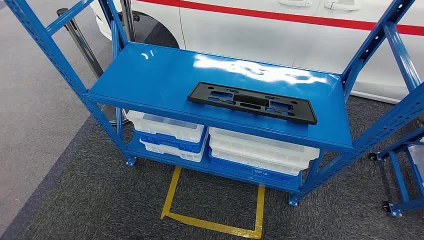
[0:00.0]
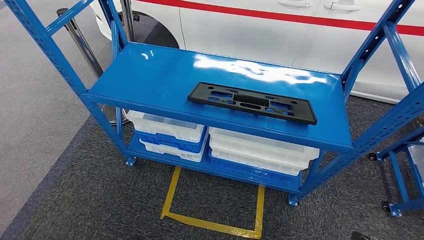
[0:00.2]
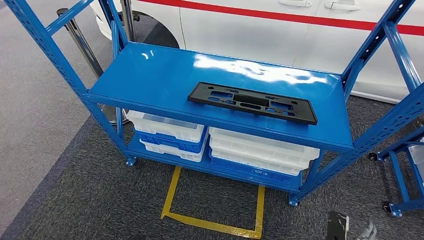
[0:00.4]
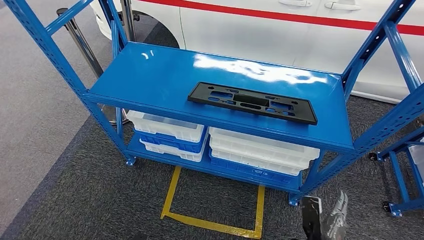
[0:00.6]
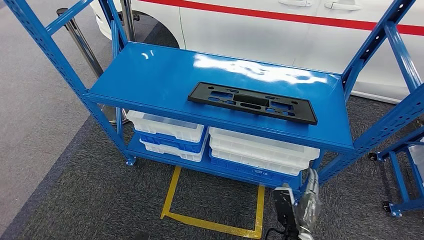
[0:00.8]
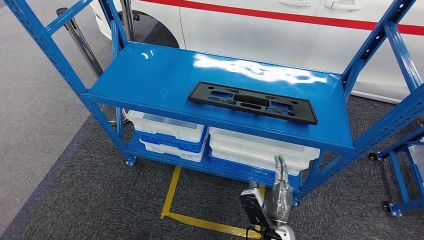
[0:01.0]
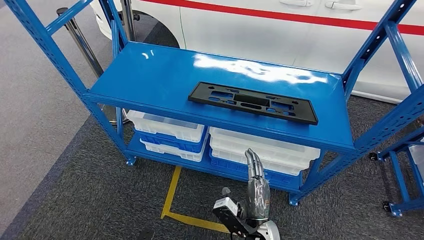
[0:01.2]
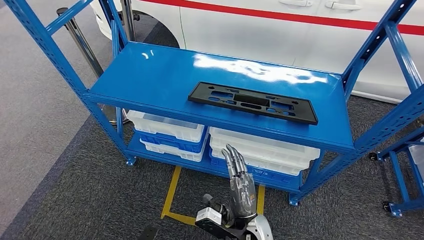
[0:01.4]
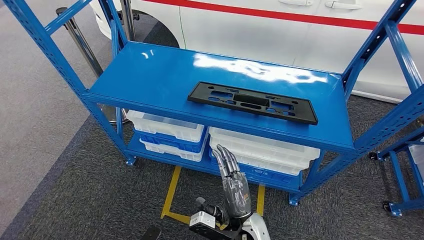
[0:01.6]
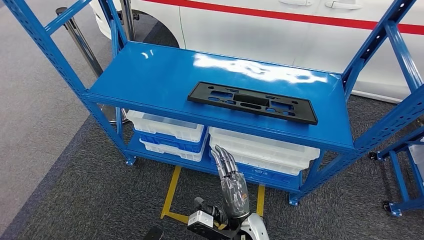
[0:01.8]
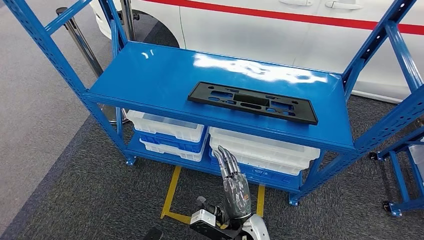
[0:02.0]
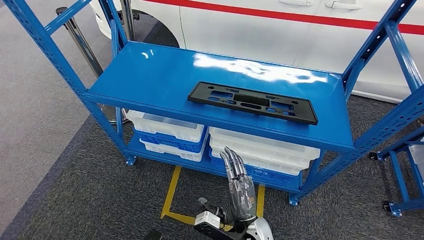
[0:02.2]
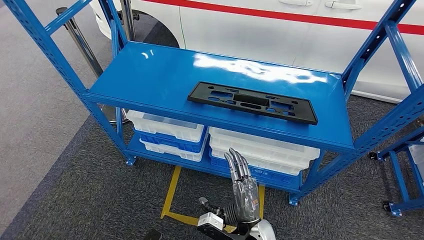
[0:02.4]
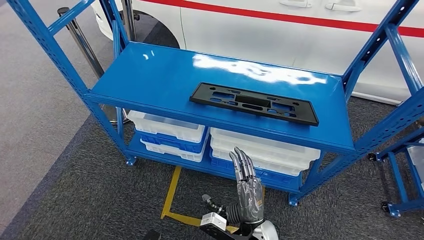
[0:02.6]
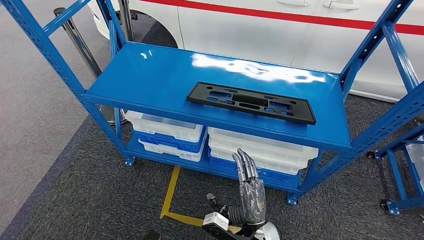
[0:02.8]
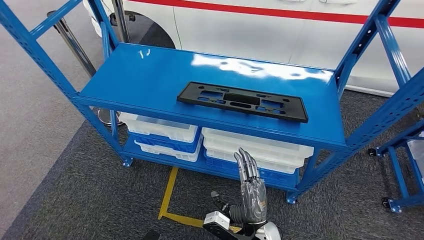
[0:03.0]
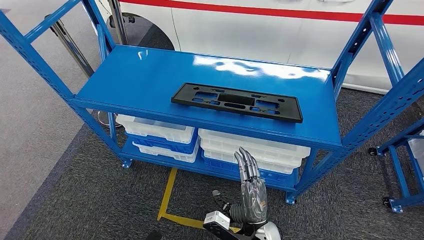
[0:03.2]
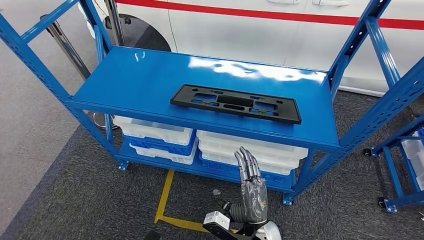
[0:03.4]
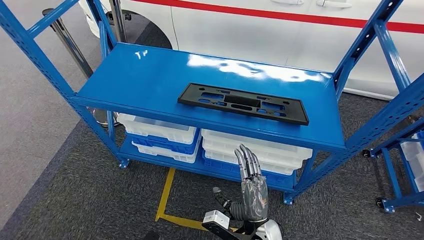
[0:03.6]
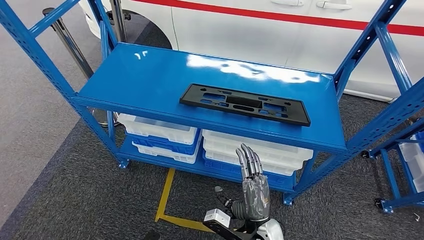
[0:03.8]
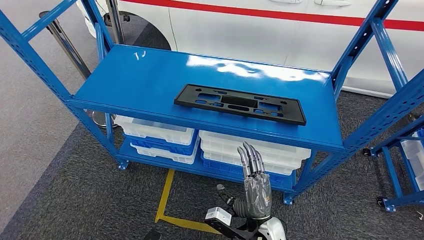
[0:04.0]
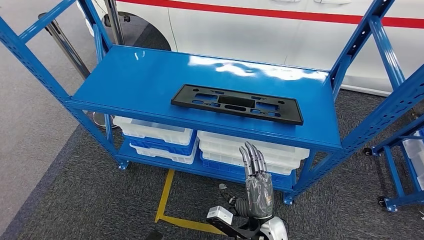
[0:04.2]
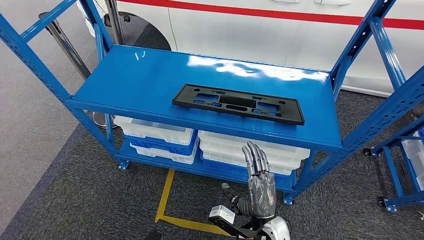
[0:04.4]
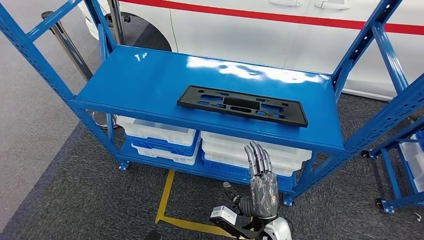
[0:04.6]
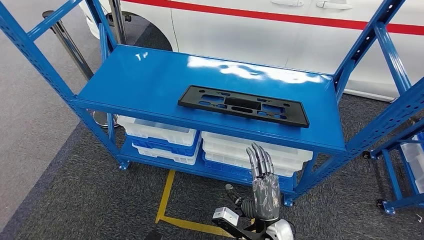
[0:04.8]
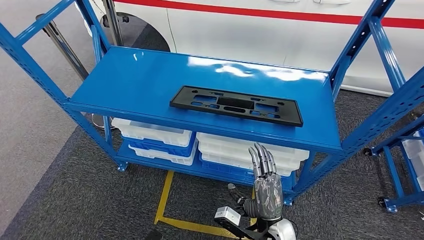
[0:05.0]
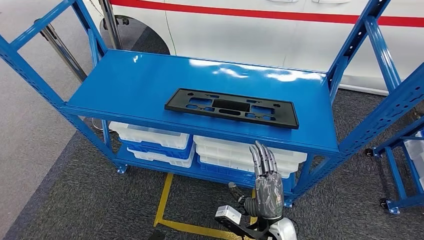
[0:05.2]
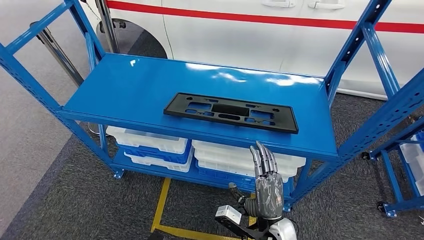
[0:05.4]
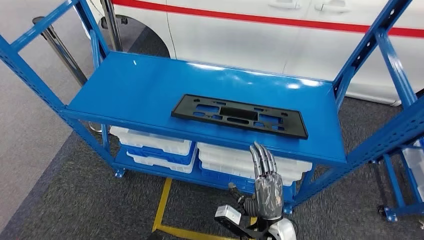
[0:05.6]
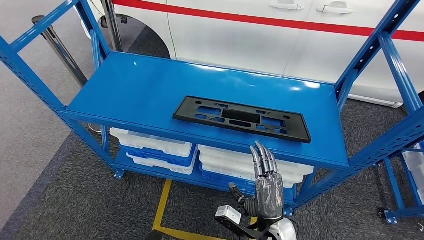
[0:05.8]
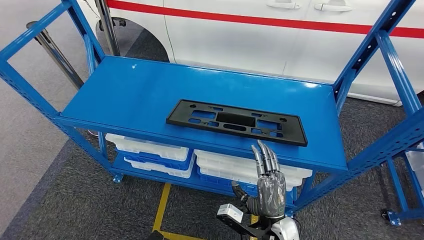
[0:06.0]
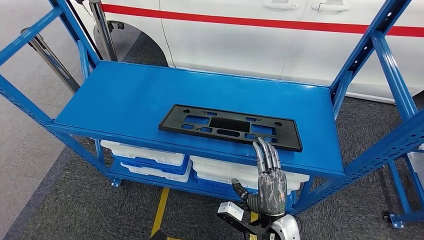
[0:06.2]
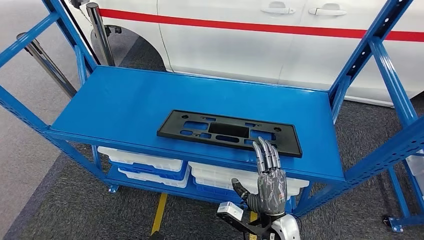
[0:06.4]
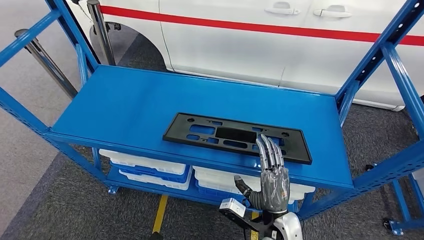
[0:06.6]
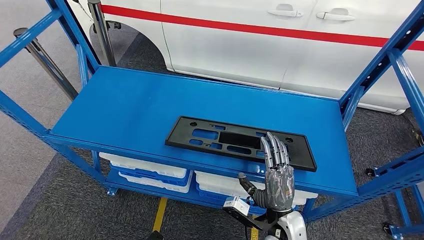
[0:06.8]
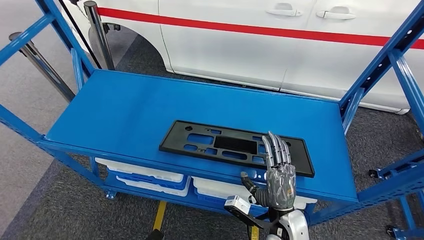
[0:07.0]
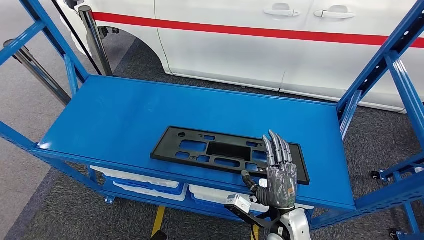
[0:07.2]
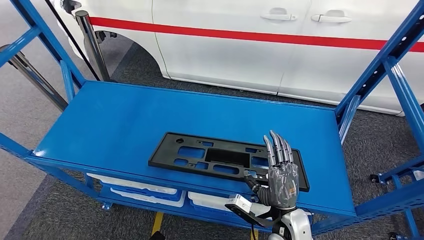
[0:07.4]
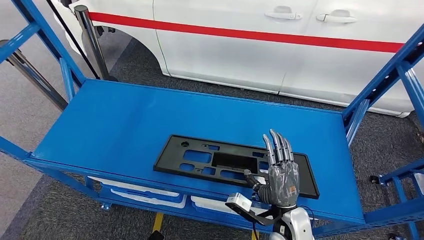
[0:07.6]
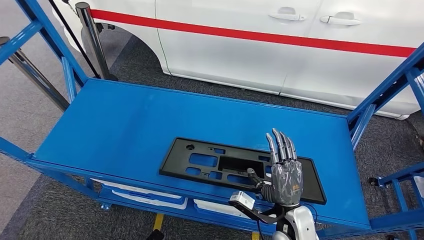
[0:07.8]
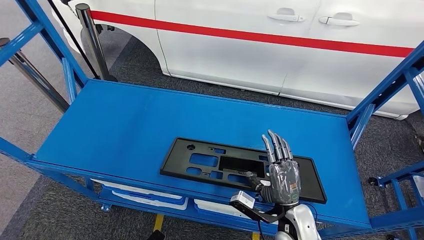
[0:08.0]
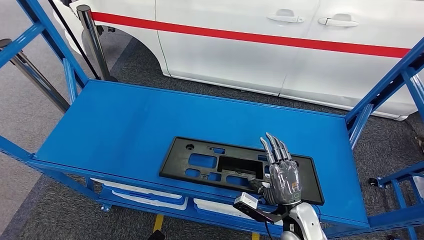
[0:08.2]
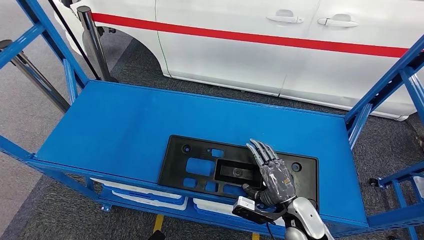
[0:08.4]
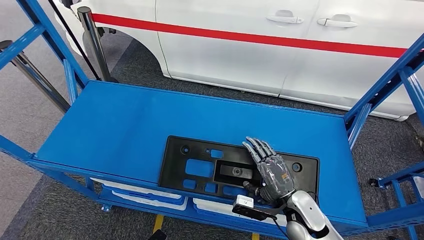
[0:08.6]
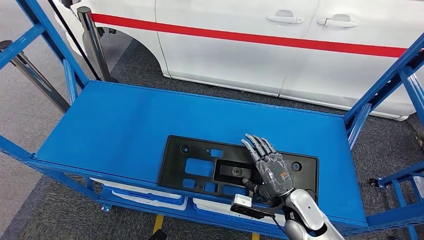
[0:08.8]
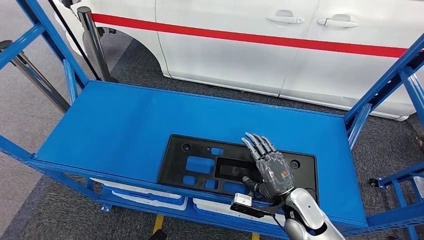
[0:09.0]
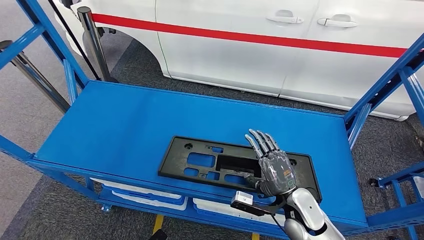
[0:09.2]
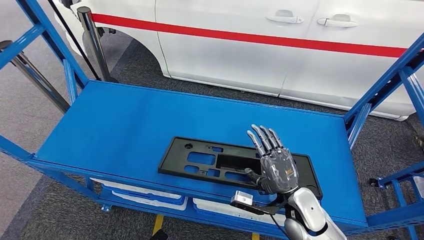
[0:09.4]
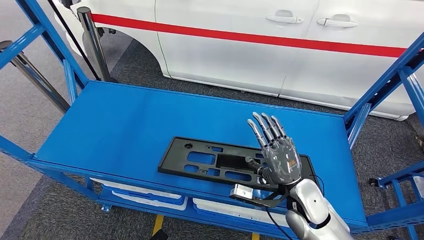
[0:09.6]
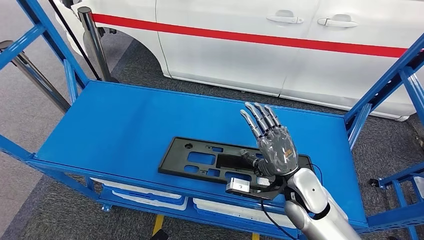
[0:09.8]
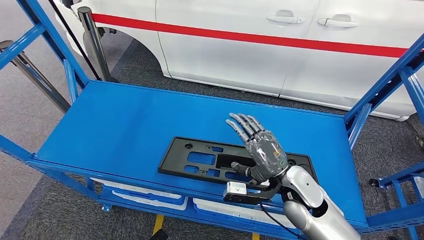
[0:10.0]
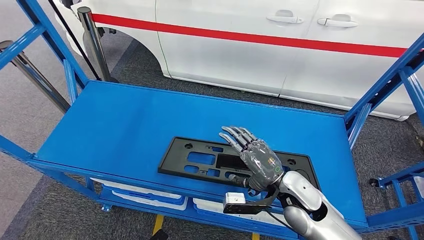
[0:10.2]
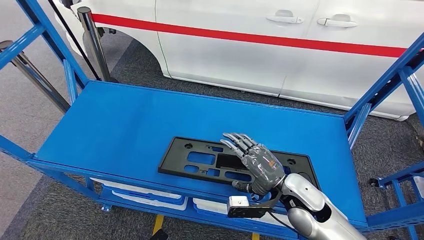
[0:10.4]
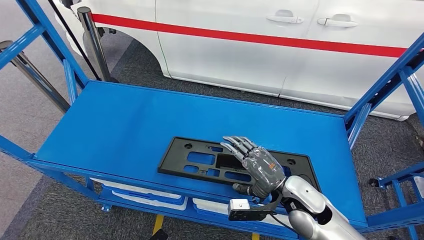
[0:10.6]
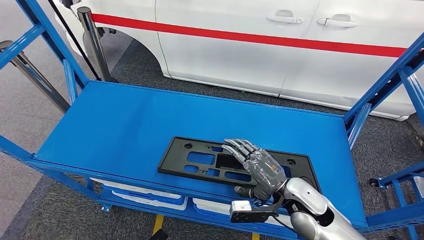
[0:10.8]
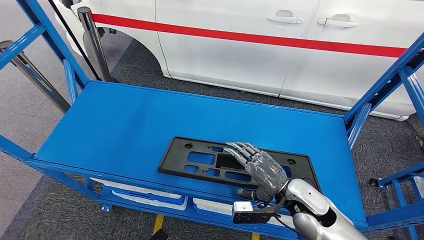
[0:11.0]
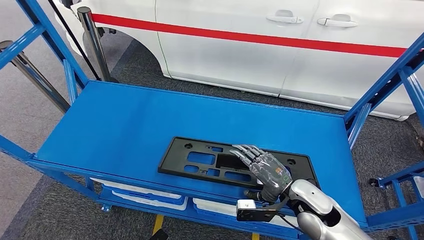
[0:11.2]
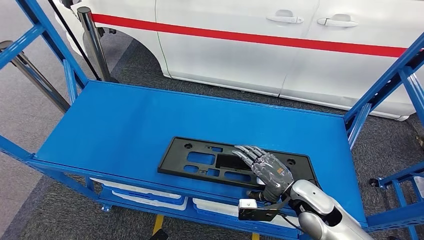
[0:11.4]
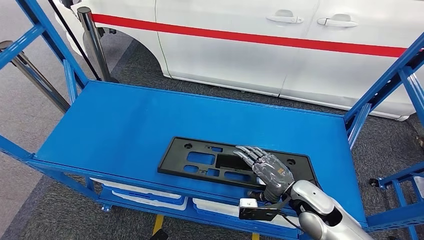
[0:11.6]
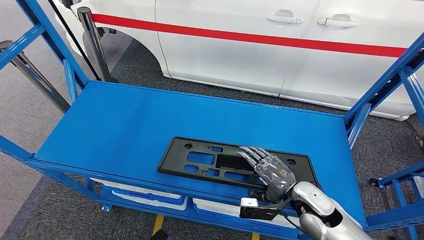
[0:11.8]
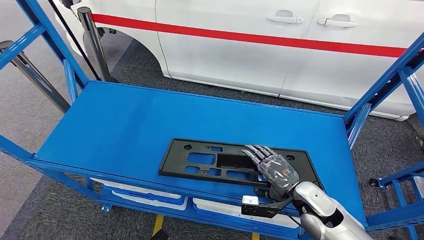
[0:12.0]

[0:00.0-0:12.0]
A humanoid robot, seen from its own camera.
0:09.0 to 0:10.4: The right hand travels upward by approximately 5 cm.
0:10.4 to 0:12.0: The right hand changes place by some 5 cm.

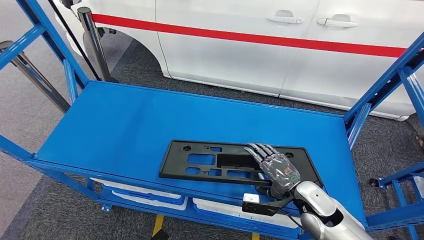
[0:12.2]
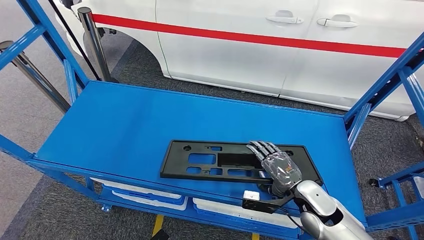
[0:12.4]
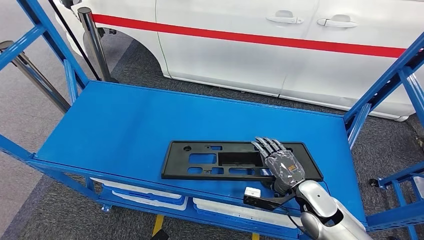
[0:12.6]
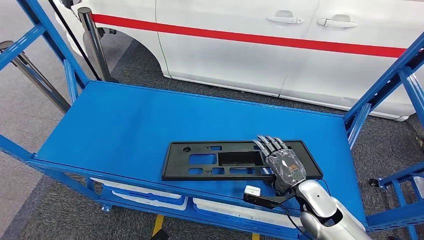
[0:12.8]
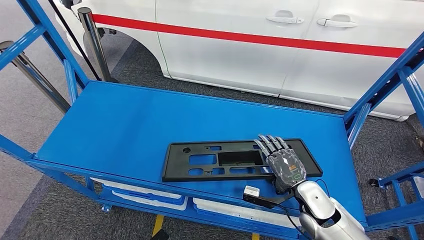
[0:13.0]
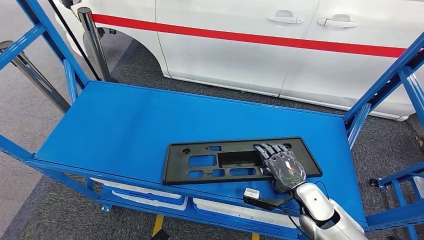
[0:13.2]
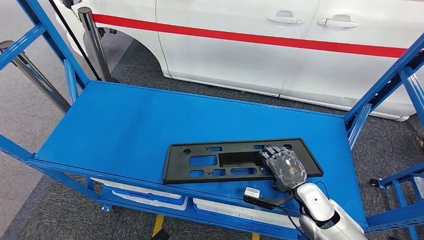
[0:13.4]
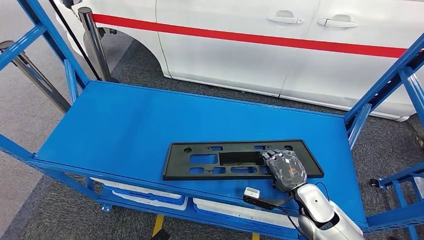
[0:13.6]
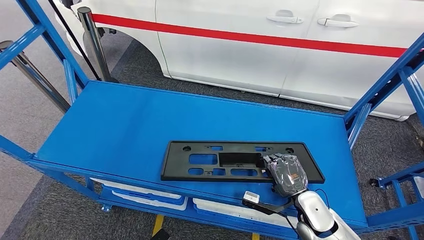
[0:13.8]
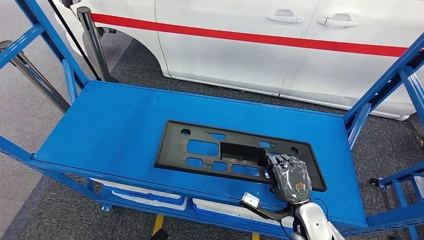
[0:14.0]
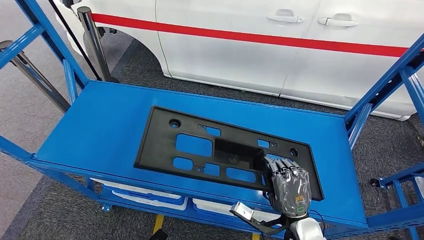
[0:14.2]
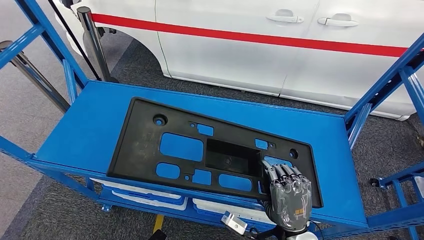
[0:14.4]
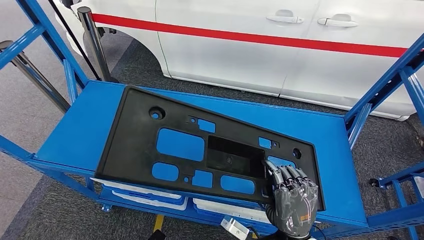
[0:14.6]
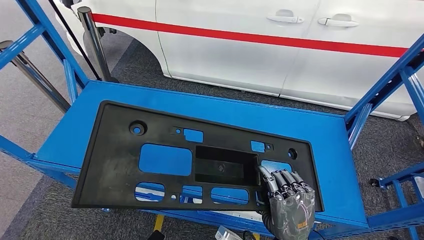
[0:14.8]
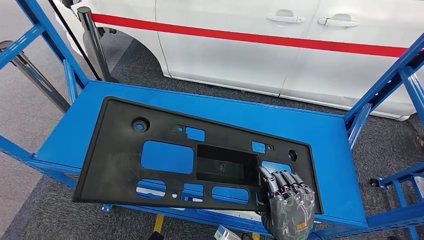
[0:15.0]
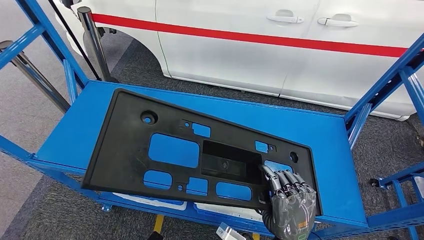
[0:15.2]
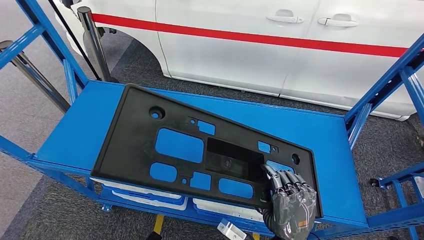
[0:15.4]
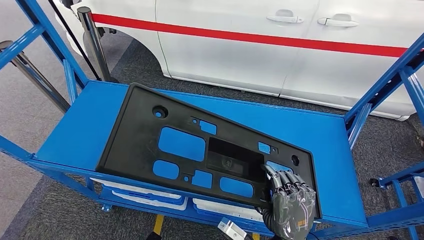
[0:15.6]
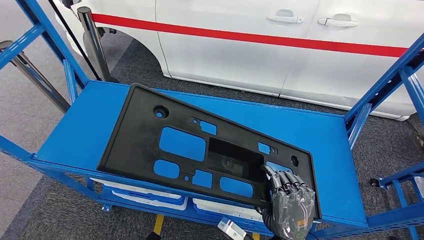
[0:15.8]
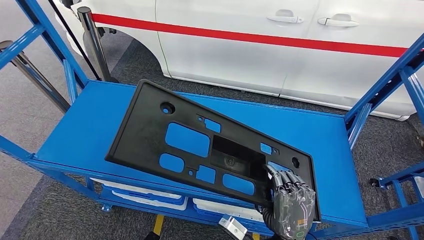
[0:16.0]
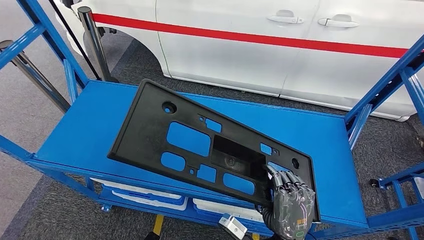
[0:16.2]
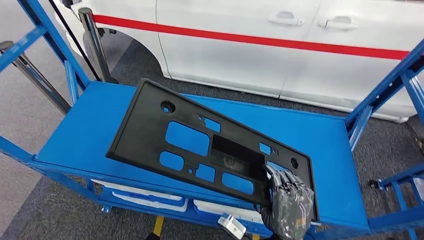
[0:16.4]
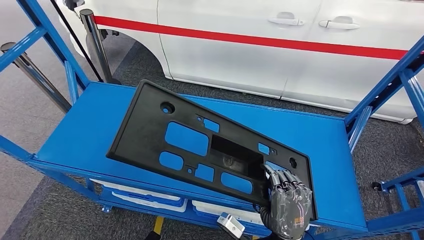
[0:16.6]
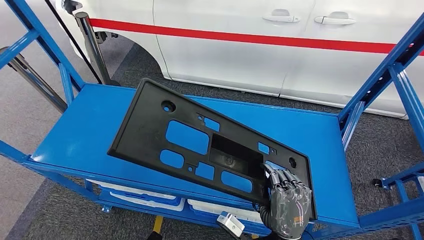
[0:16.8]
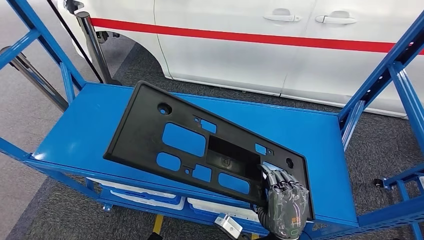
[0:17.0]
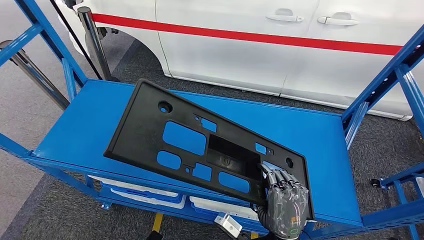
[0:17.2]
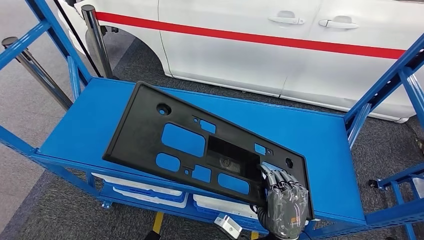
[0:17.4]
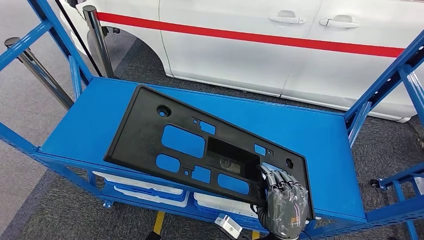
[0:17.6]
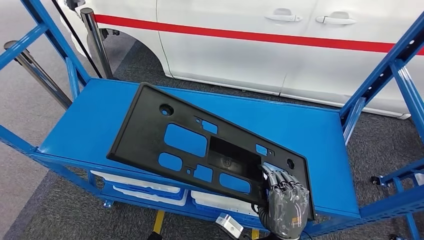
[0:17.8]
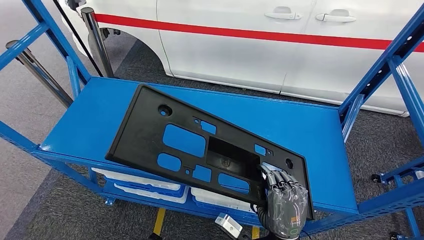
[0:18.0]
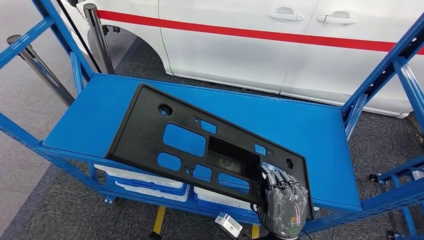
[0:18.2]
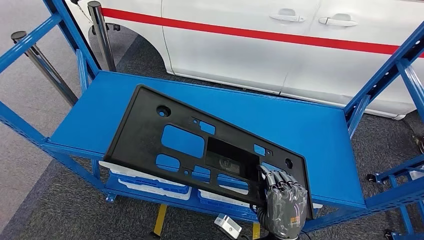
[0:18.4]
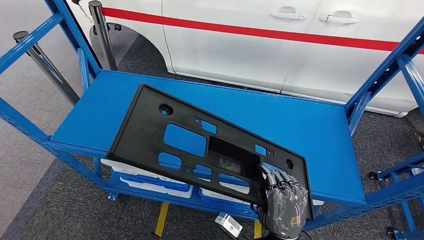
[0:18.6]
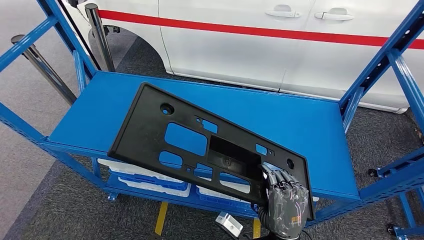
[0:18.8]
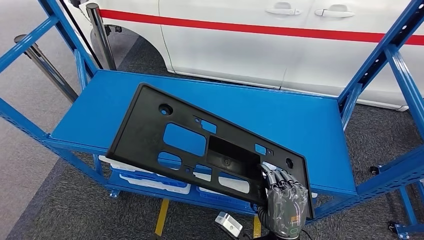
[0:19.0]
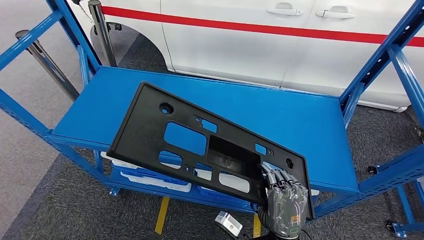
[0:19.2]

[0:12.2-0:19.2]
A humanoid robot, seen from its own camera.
Step, 0:12.2 to 0:15.2: Pick up the large material from the shelf.
0:12.2 to 0:13.6: The hands make only small movements.
0:13.6 to 0:15.0: The right hand shifts about 20 cm backward, to the left and upward.
0:15.0 to 0:16.4: The hands move only a little.
